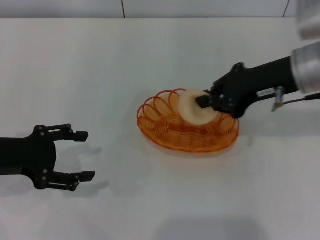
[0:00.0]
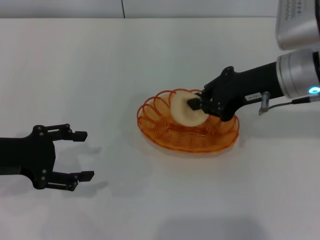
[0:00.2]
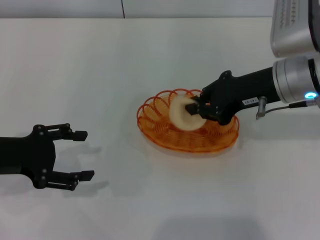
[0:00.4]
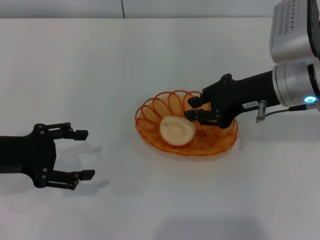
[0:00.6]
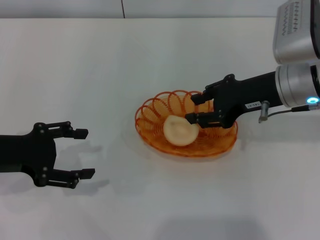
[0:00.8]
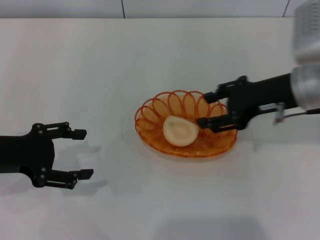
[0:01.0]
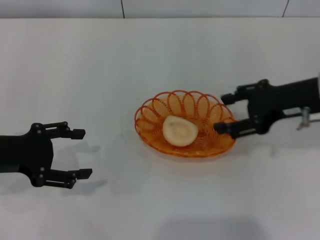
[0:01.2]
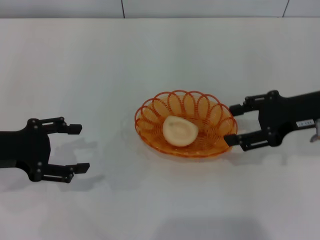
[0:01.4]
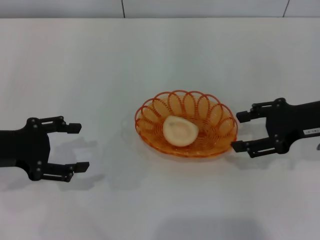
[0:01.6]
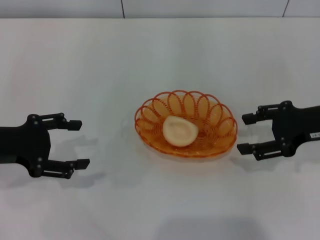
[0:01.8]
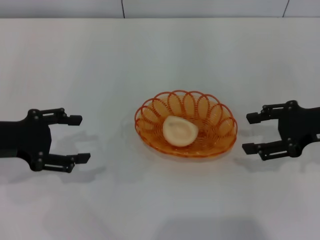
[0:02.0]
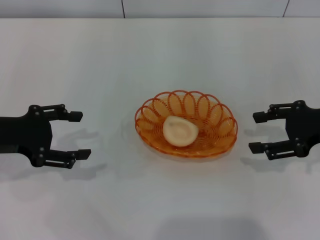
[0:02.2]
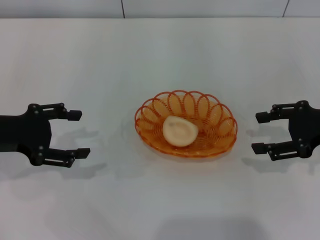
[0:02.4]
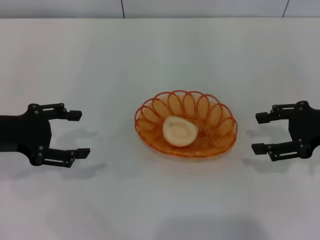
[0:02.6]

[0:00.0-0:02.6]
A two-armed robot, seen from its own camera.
Step, 0:00.0 to 0:01.0: Place the egg yolk pastry into the basket with the right gripper.
0:00.0 to 0:01.2: The right gripper shifts by roughly 5 cm, and opens.
0:01.2 to 0:02.6: The right gripper heads to the right, covering some 5 cm.

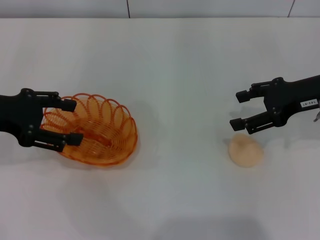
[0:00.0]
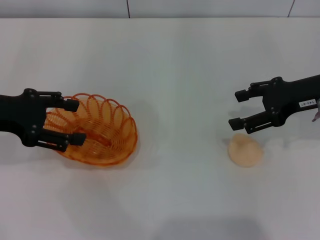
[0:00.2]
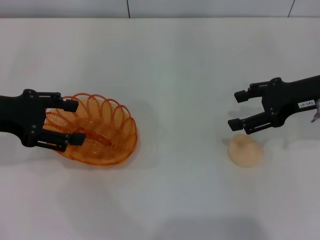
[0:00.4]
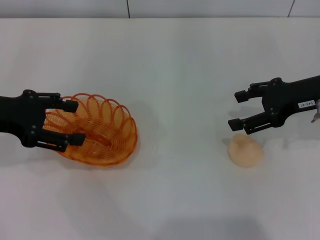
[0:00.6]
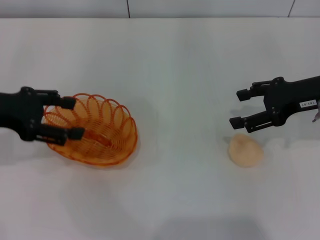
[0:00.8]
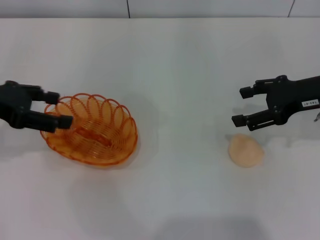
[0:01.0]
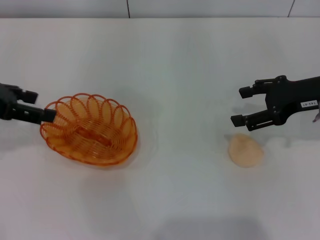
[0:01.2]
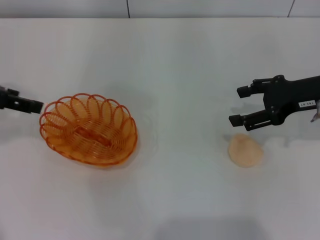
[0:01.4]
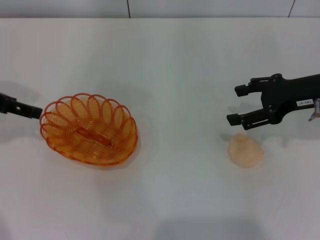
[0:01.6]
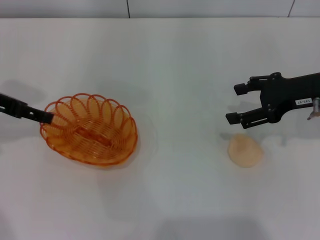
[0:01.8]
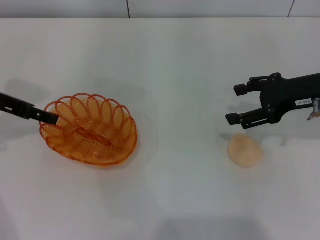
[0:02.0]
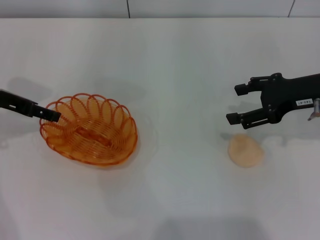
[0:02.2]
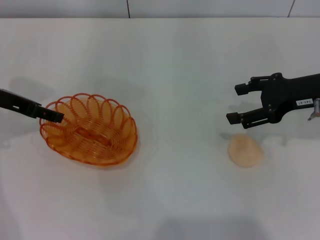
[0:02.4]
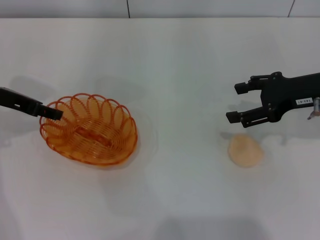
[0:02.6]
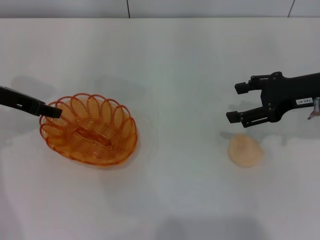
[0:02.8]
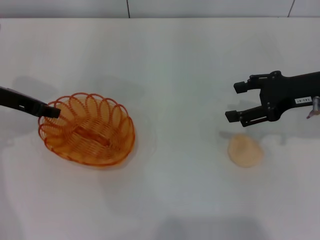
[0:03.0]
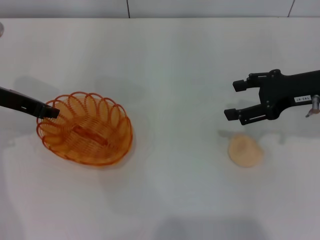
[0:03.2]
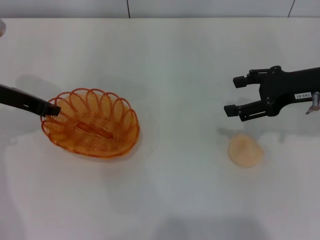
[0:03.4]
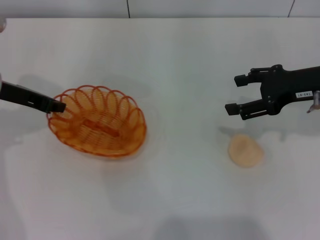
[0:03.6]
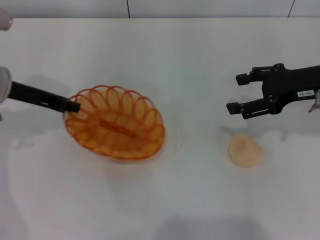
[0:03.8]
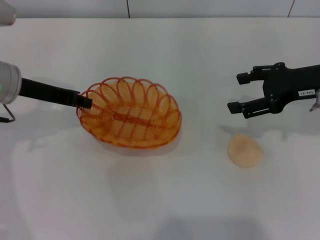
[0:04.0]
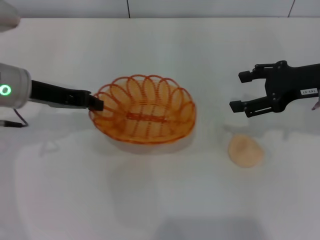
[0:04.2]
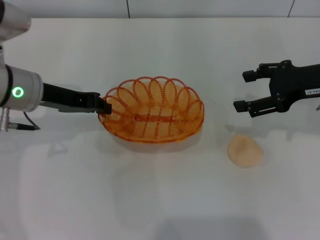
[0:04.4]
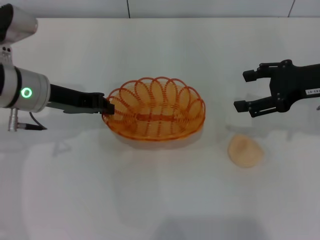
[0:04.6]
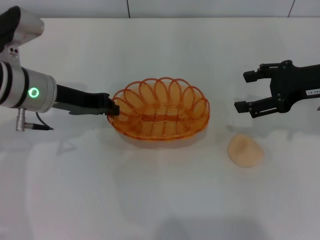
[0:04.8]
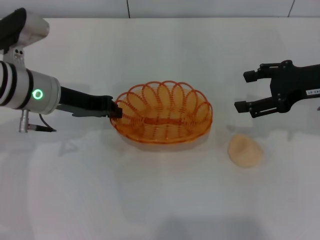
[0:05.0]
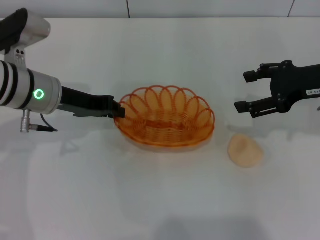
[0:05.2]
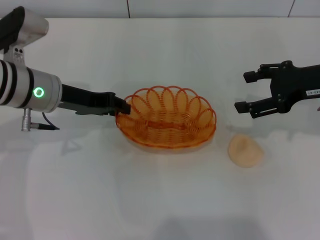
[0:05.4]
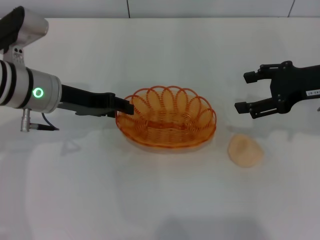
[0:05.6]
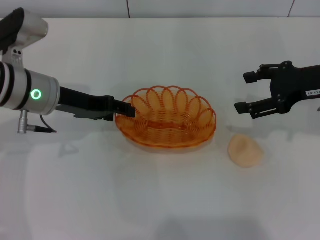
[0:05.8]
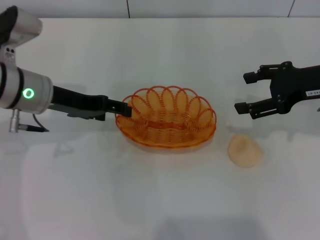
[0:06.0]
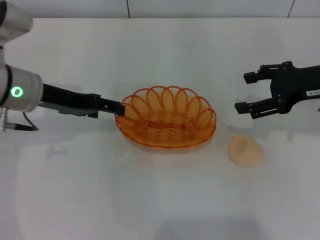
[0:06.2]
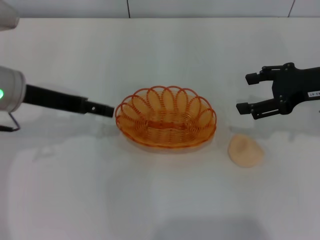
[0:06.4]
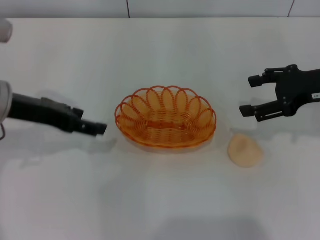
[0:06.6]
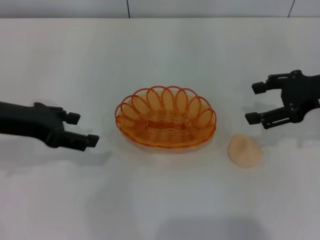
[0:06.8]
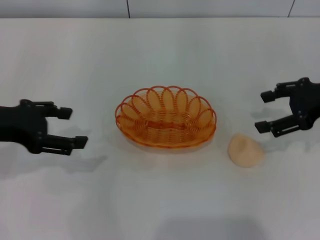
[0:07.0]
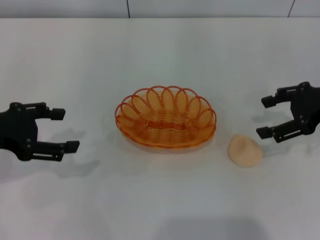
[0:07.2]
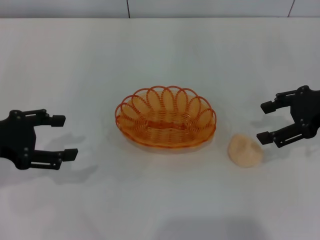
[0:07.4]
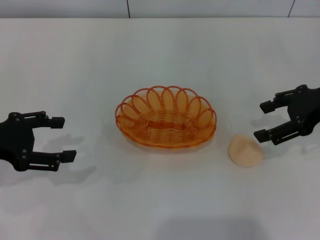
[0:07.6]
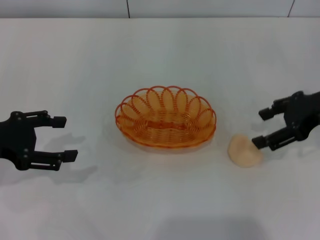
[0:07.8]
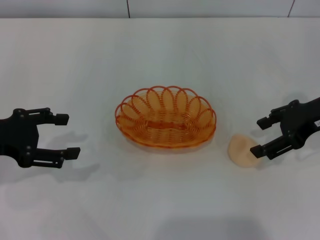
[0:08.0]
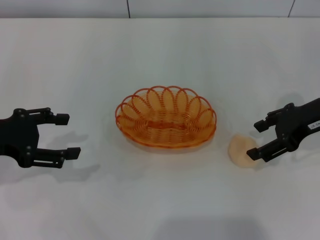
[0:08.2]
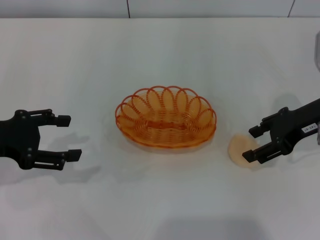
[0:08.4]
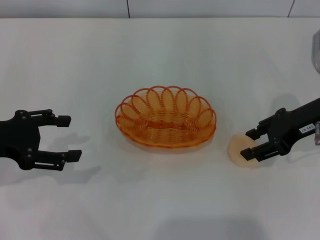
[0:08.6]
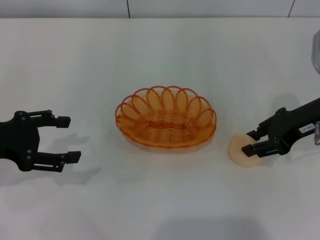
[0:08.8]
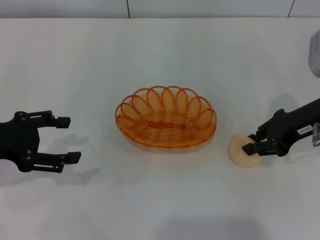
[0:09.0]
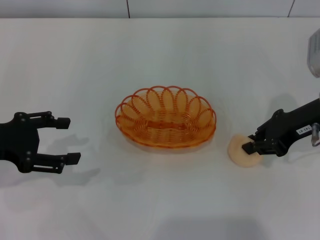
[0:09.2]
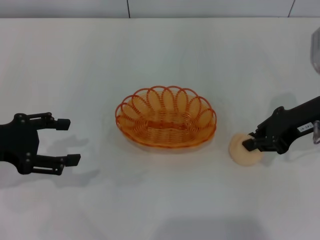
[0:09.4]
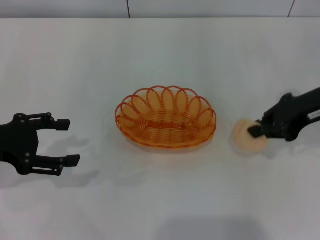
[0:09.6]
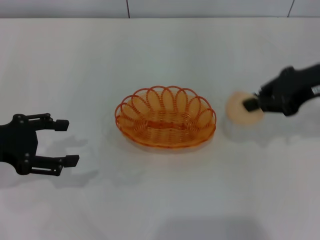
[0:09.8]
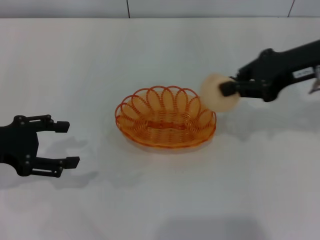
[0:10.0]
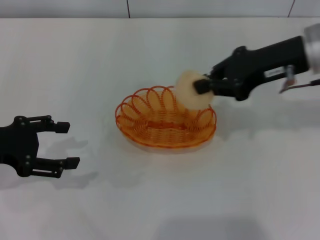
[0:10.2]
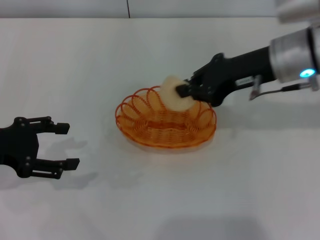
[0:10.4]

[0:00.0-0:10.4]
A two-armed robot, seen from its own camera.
Step, 0:00.0 to 0:04.0: Pick up the basket with the left gripper.
Step, 0:04.2 to 0:06.4: Place the basket in the center of view with the left gripper.
Step, 0:06.6 to 0:09.8: Pick up the egg yolk pastry with the right gripper.
0:01.4 to 0:03.0: The left gripper heads downward, covering roughly 5 cm.
0:03.0 to 0:04.4: The left gripper heads to the right, covering roughly 5 cm, and closes up.
0:04.4 to 0:06.0: The left gripper opens.
0:06.0 to 0:07.4: The left gripper is displaced to the left and backward by roughly 15 cm.
0:07.4 to 0:09.0: The right gripper ends up about 5 cm from where it was, and closes.
0:09.0 to 0:10.4: The right gripper goes approximately 10 cm to the left, and closes its fingers.

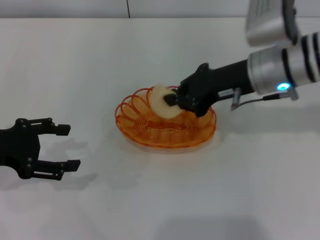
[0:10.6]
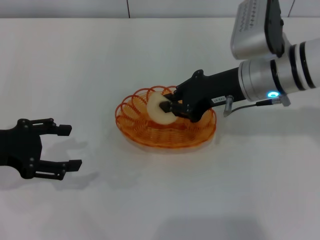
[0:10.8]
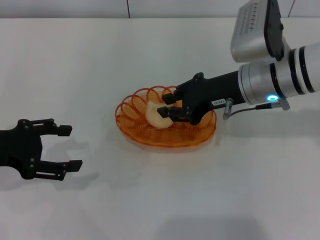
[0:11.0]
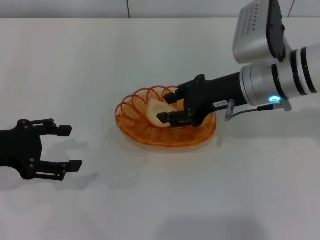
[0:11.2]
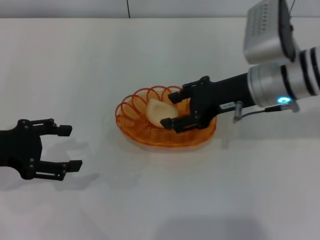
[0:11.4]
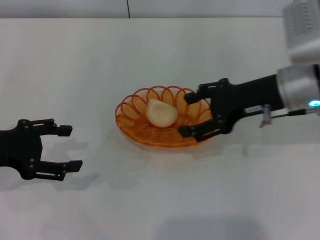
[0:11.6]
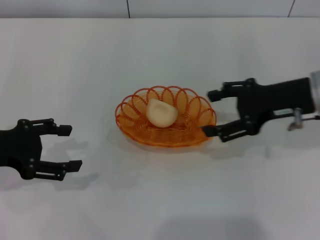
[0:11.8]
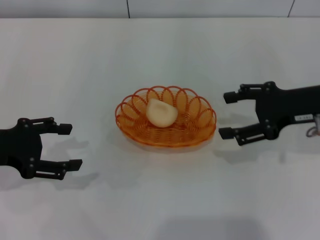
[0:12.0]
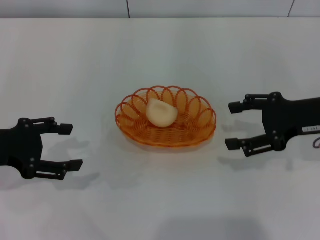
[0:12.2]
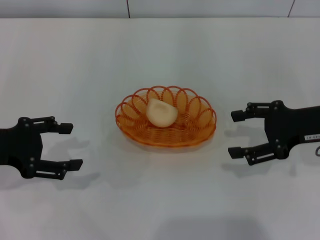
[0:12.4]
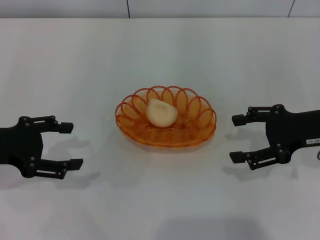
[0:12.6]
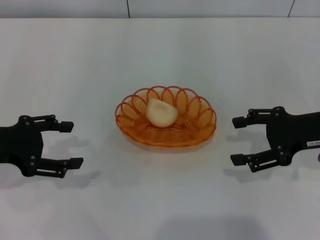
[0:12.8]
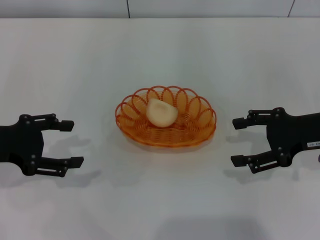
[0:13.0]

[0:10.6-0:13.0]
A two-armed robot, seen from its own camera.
Step, 0:10.6 to 0:11.8: Place the egg yolk pastry into the basket with the right gripper.
0:10.6 to 0:11.8: The right gripper goes approximately 5 cm to the right, and opens its fingers.
0:11.8 to 0:13.0: The right gripper shifts by roughly 5 cm.
